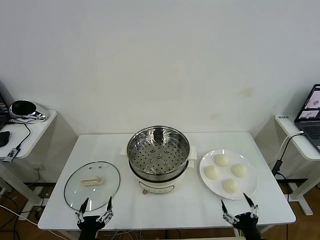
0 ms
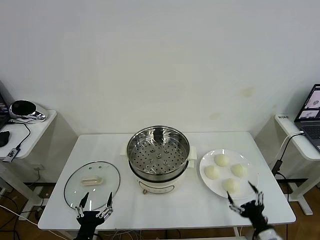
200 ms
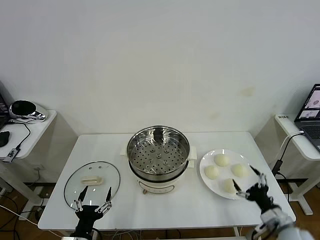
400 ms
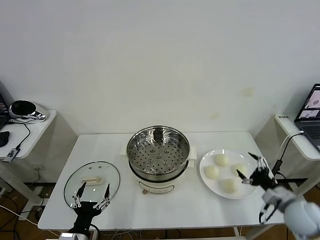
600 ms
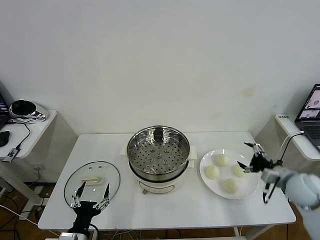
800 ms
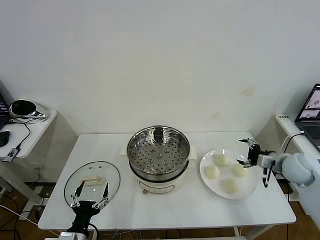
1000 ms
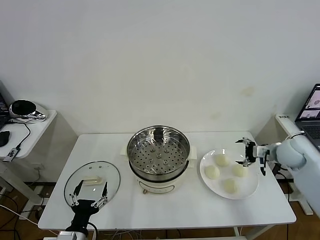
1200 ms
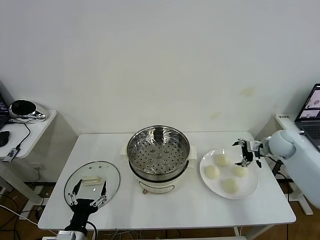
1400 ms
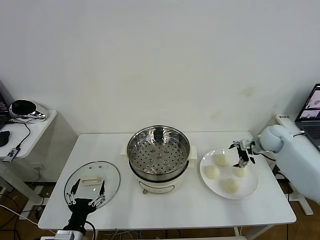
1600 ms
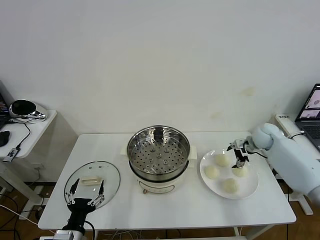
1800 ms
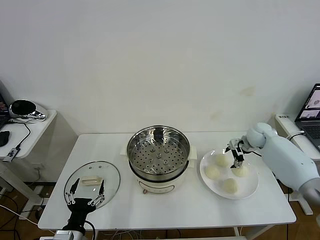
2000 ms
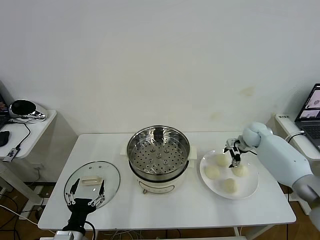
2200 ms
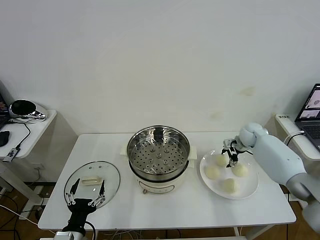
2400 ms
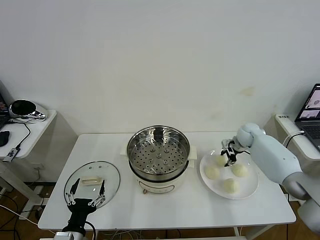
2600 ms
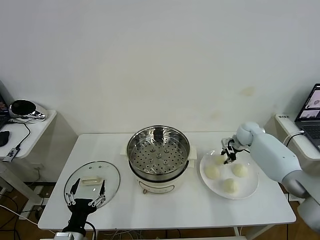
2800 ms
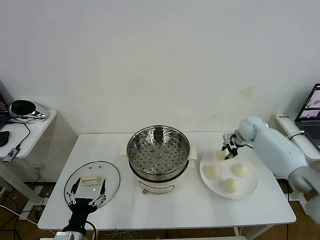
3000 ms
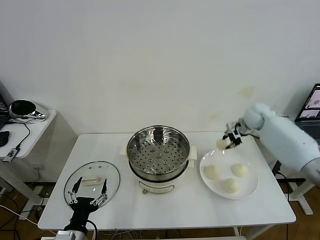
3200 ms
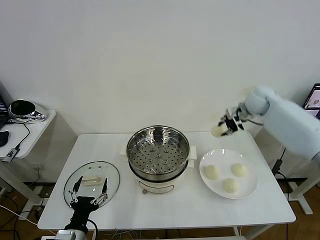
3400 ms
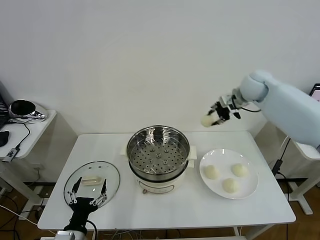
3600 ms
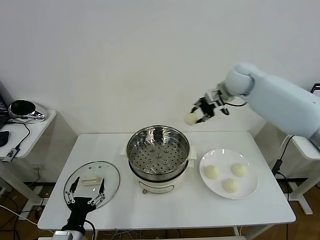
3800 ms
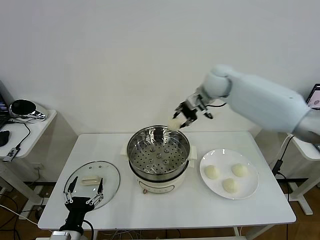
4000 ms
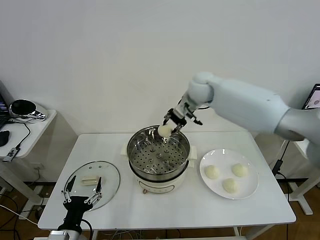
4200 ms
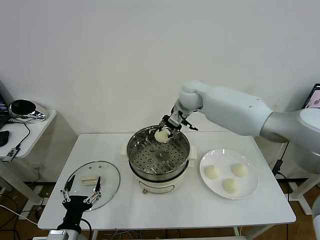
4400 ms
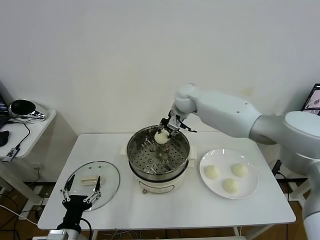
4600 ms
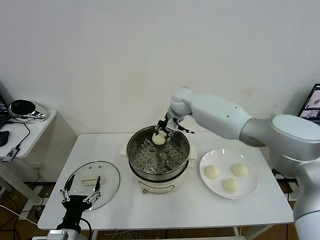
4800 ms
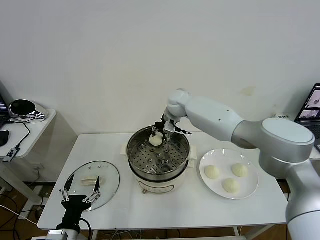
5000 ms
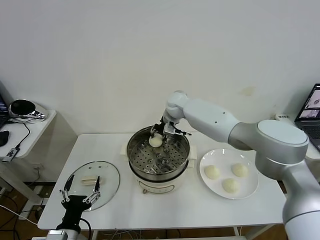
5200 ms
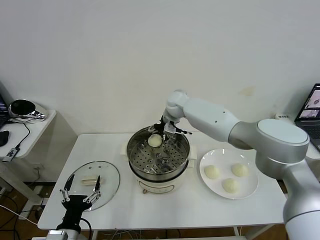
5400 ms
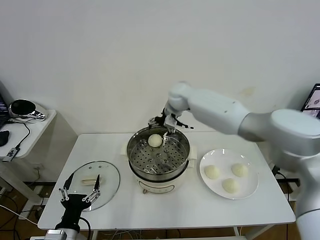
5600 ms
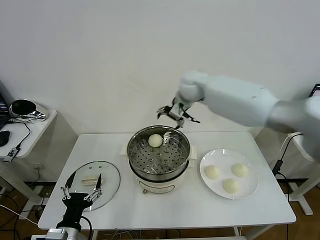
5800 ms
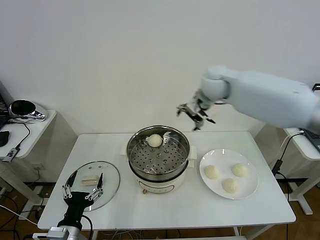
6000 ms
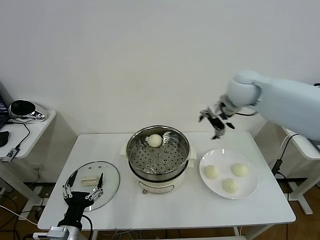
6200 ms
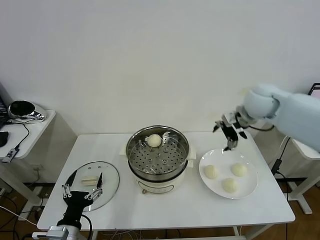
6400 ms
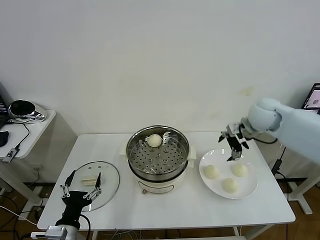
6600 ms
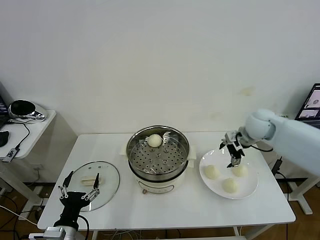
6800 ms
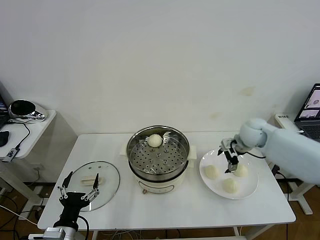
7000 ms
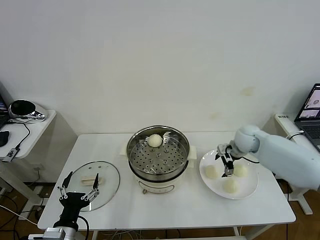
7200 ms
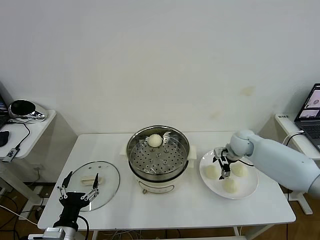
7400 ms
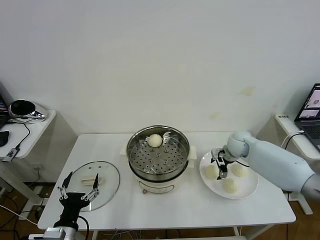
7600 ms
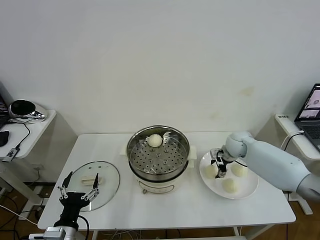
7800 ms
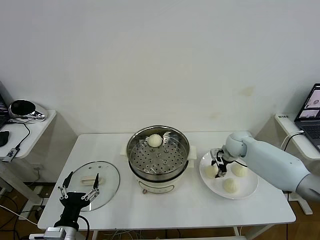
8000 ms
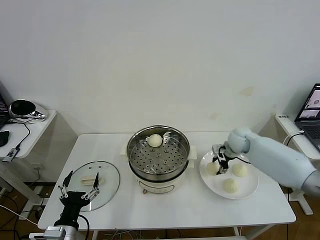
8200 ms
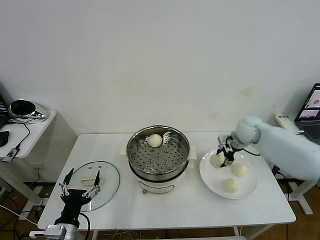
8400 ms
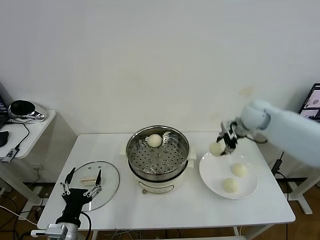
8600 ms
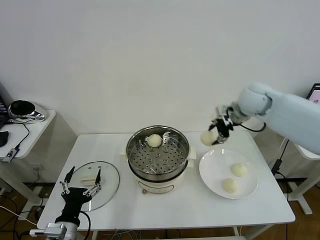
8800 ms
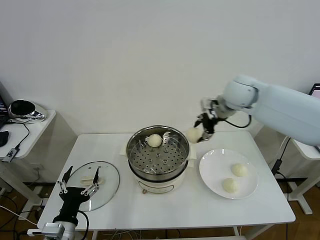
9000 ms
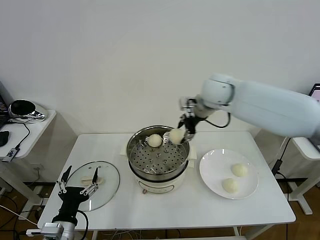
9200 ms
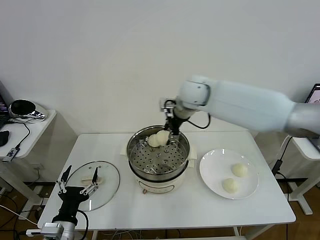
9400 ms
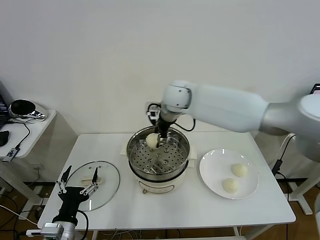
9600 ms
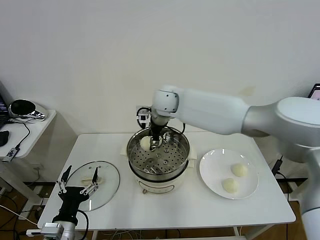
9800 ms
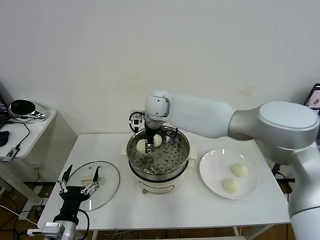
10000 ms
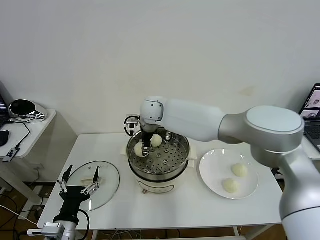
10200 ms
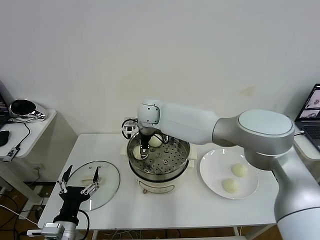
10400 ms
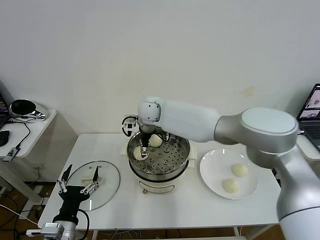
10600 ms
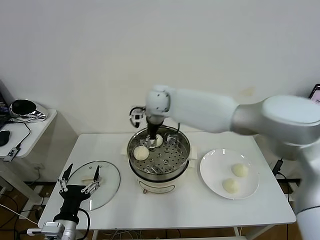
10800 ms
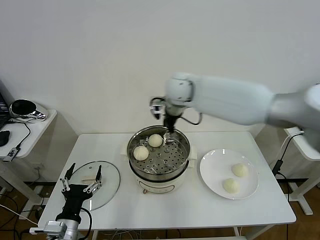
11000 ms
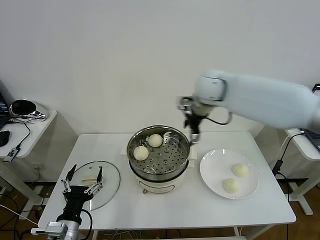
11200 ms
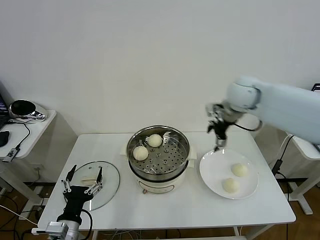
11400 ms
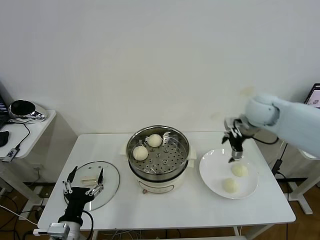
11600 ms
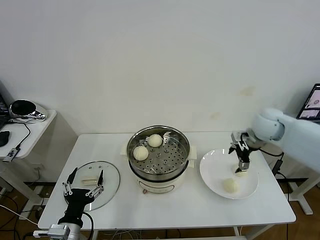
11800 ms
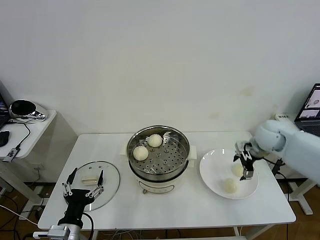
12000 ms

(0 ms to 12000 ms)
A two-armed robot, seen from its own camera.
Task of the whole recording: take steamed baozi put them in steamer then cover it.
Step, 0 ms - 2600 ms: Grasp the baozi in the plate with right gripper.
Step, 2800 ms - 5400 ms: Place the baozi on the steamer with right gripper.
Step, 5600 ms - 8000 ms: Grasp the baozi in the plate with right gripper.
Step, 8200 ms - 10400 ms: Place the baozi on the steamer with right gripper.
1600 ms - 3000 ms: The right gripper goes about 5 cm forward, and closes its fingers.
3000 ms - 4400 ms: The right gripper goes approximately 25 cm to the left.
4400 ms - 6000 ms: The right gripper travels to the right, upward and backward by about 15 cm, and opens up.
6000 ms - 7600 ms: The right gripper moves downward, about 25 cm.
7600 ms - 9000 ms: The right gripper is displaced upward and to the left by some 25 cm, and closes its fingers.
9000 ms - 10400 ms: The right gripper travels to the left and downward by some 25 cm, and opens up.
10400 ms - 12000 ms: The right gripper goes approximately 40 cm to the right.

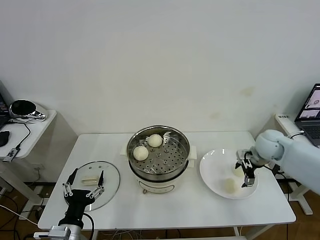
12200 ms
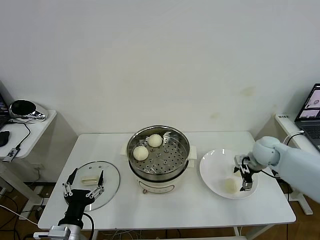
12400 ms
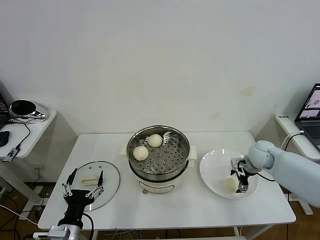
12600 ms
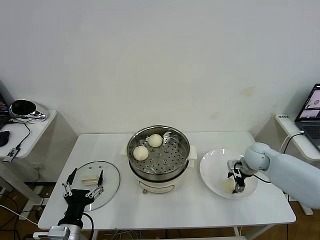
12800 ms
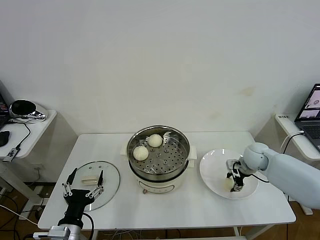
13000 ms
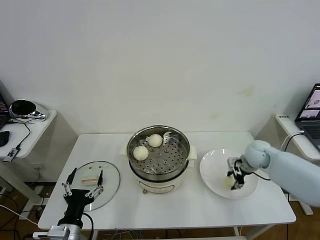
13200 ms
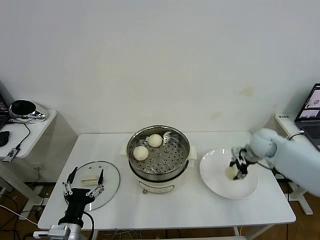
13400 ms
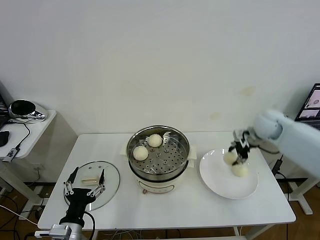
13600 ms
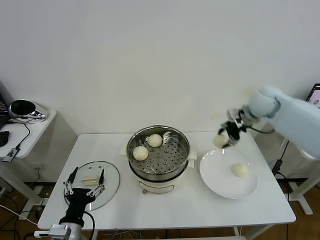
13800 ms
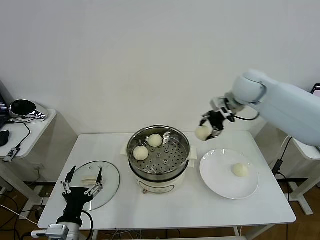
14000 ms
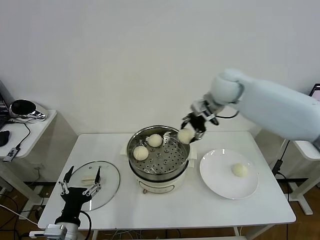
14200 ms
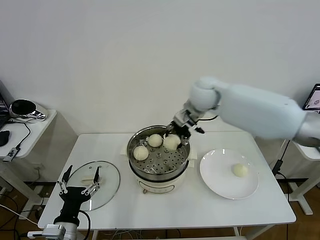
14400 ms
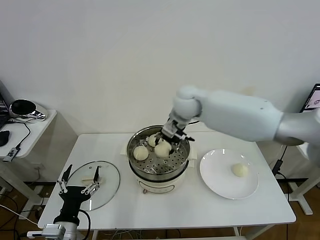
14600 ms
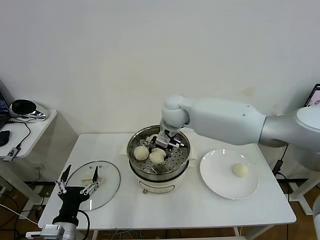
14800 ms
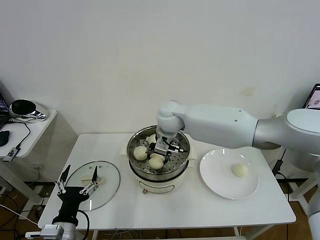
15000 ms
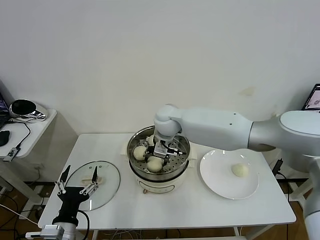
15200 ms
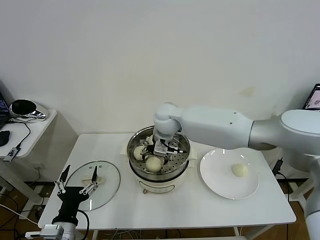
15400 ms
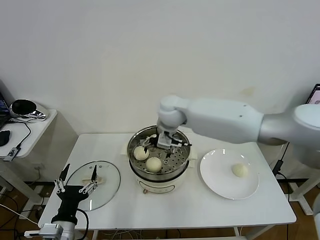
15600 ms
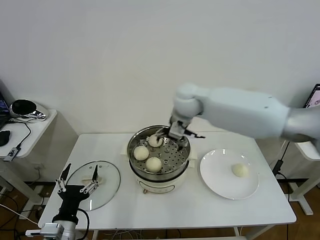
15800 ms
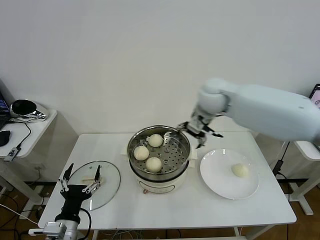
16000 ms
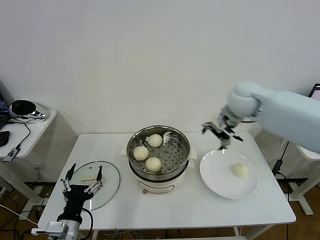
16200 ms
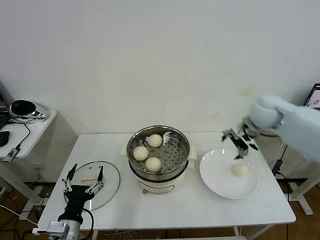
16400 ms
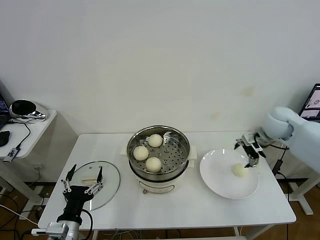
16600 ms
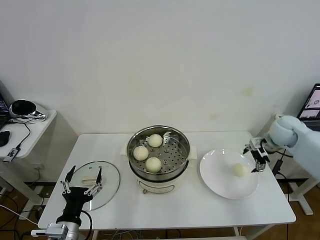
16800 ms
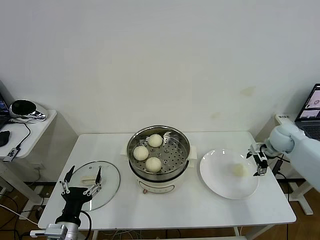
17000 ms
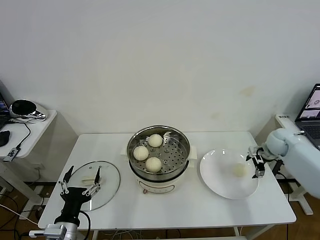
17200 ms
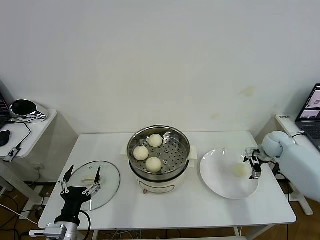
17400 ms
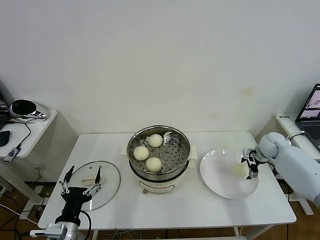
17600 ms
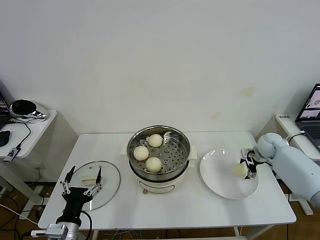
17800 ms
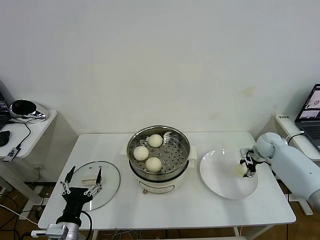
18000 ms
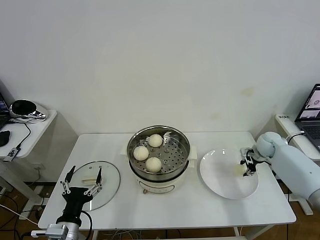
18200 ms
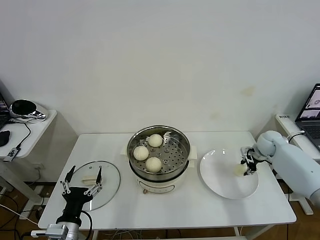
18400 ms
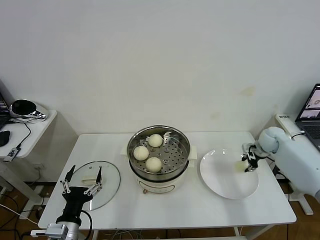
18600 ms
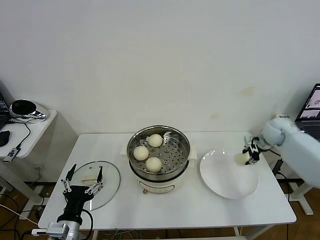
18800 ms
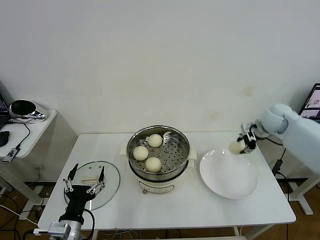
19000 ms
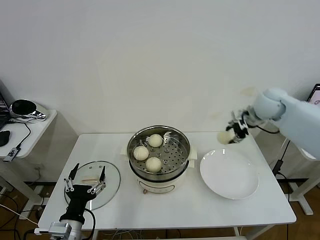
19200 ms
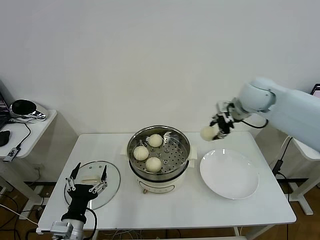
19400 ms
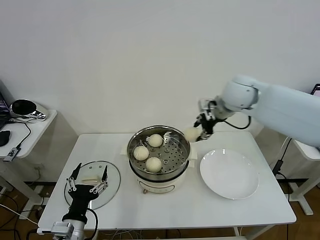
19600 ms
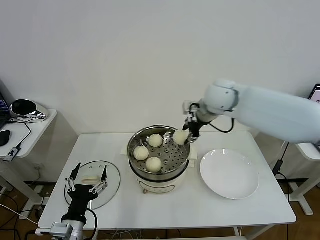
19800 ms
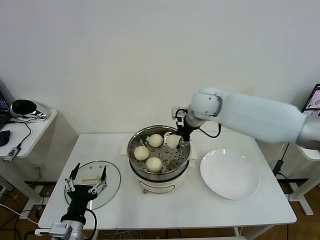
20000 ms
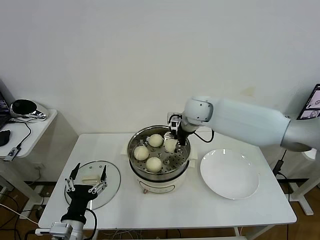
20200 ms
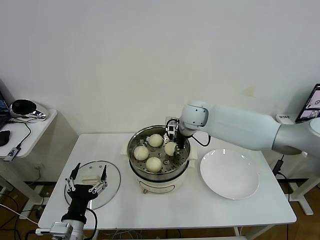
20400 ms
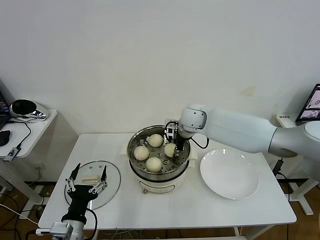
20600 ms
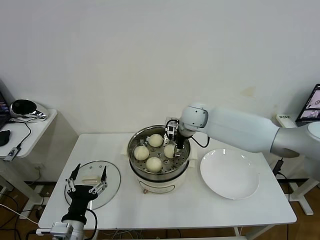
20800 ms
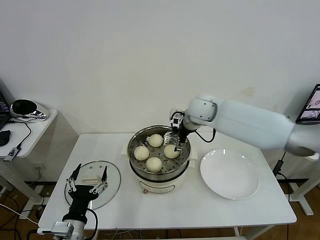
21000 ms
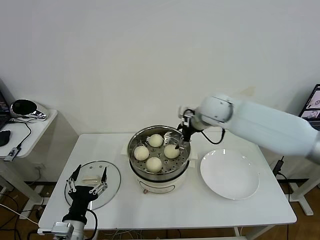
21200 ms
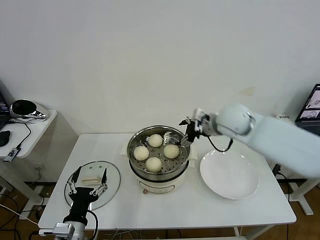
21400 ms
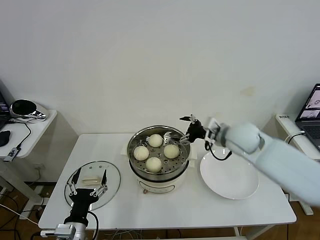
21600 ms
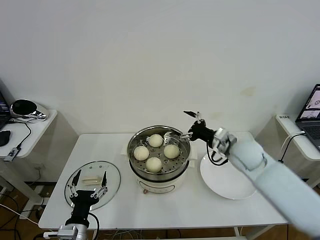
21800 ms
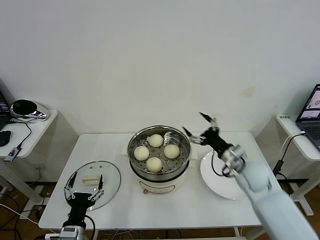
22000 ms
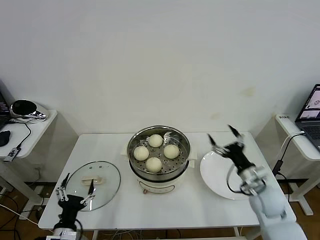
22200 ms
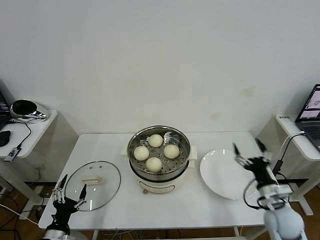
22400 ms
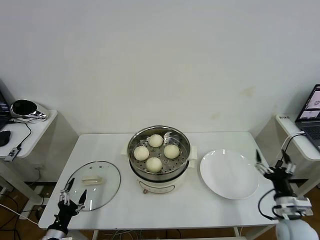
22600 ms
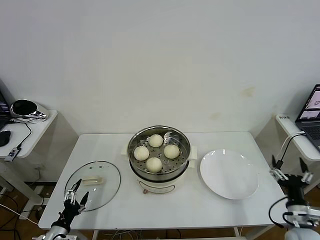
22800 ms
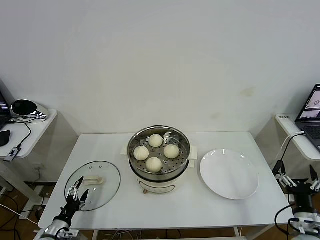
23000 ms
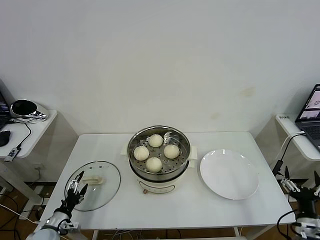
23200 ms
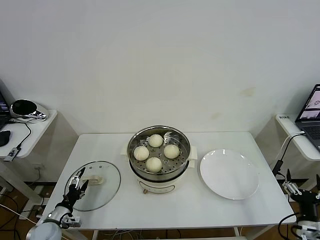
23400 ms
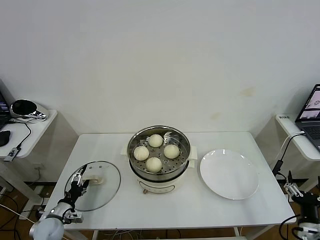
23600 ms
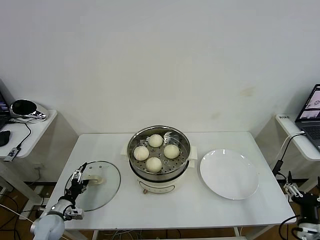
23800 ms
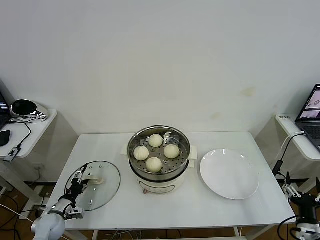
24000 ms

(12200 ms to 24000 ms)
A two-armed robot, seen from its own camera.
Task of the whole recording: take steamed baozi put them in steamer then cover it.
Step, 13200 ms - 15400 ms: Place the baozi on the steamer with right gripper.
Step, 15600 ms - 18000 ms: Grasp the baozi in the plate with right gripper.
Step, 18400 ms - 20800 ms: Place the baozi on the steamer with right gripper.
12200 ms - 13600 ms: The right gripper travels upward and forward by about 10 cm, and closes up.
13600 ms - 15200 ms: The right gripper heads to the left, covering roughly 35 cm.
15200 ms - 16600 ms: The right gripper travels to the right by about 35 cm.
16600 ms - 18200 ms: The right gripper moves downward, some 15 cm, and closes up.
18200 ms - 19600 ms: The right gripper goes roughly 35 cm upward and to the left.
19600 ms - 21000 ms: The right gripper moves to the left and downward, about 10 cm, and opens up.
21000 ms - 22600 ms: The right gripper moves backward, to the right and downward, roughly 50 cm; the left gripper is displaced to the left and downward by about 15 cm.
22600 ms - 24000 ms: The left gripper is displaced forward by roughly 10 cm. The right gripper travels backward by roughly 5 cm.
